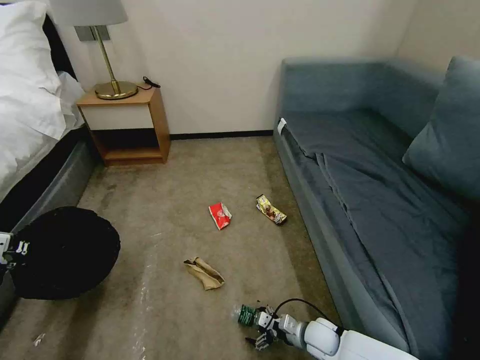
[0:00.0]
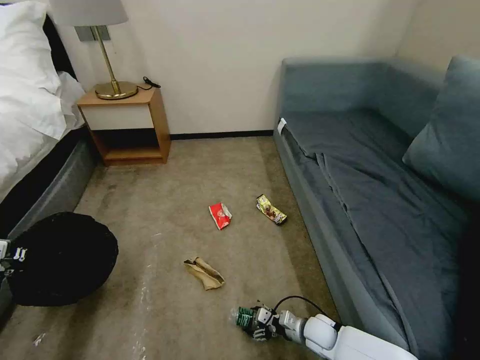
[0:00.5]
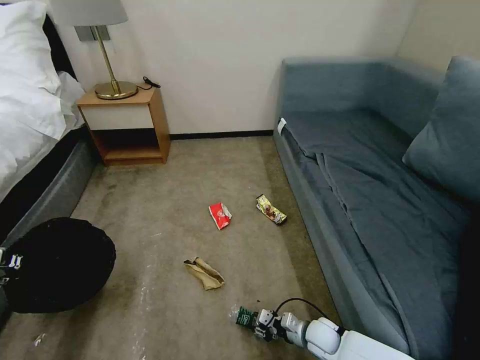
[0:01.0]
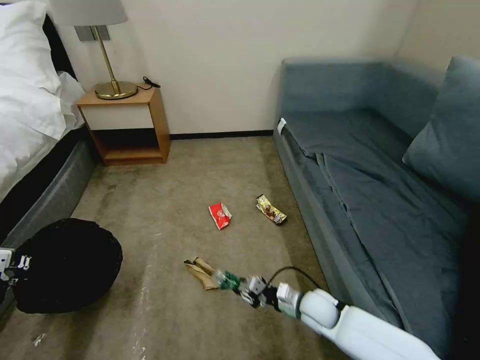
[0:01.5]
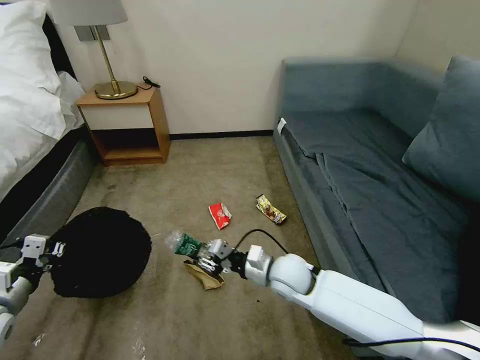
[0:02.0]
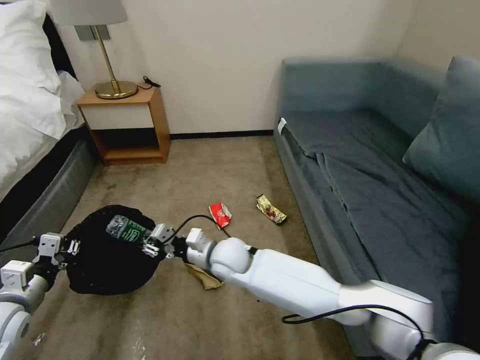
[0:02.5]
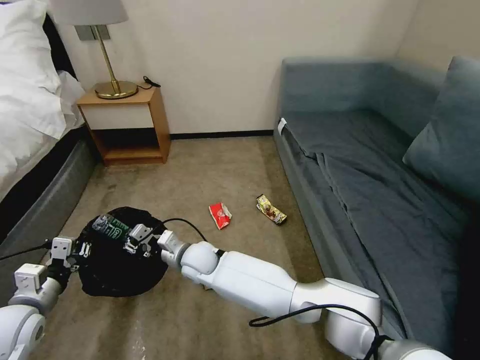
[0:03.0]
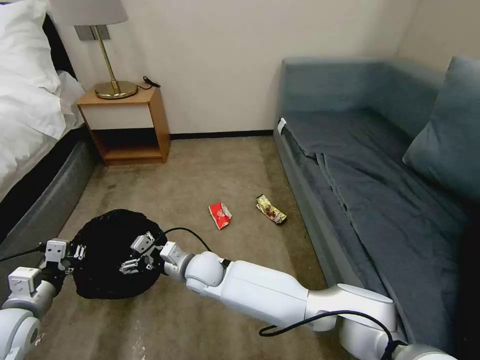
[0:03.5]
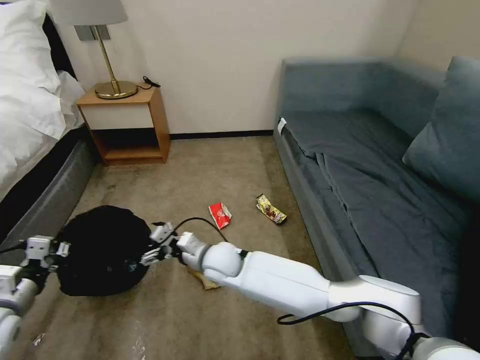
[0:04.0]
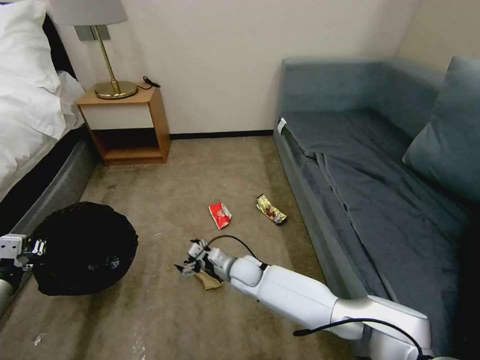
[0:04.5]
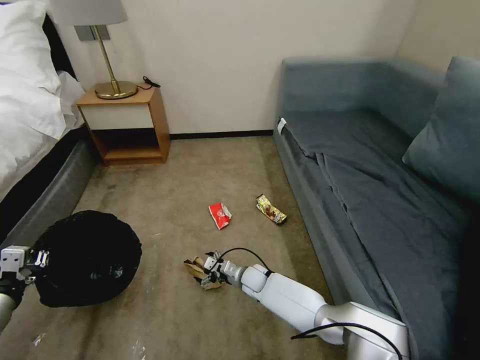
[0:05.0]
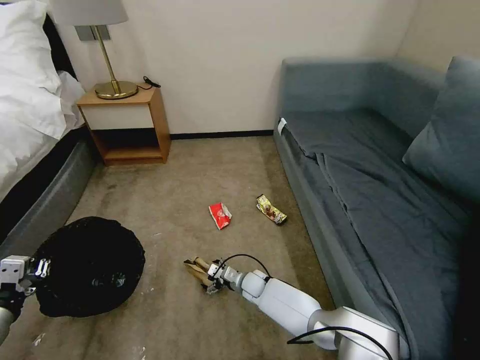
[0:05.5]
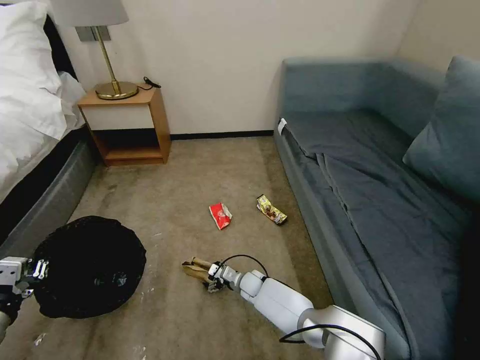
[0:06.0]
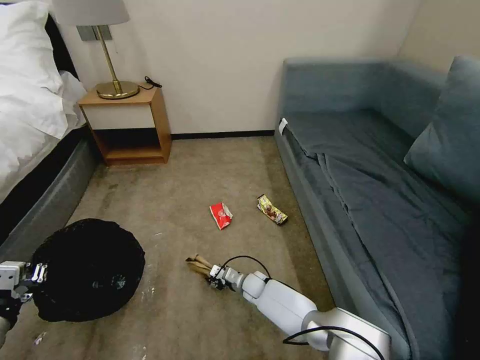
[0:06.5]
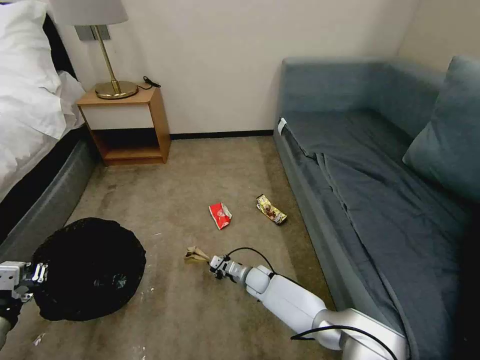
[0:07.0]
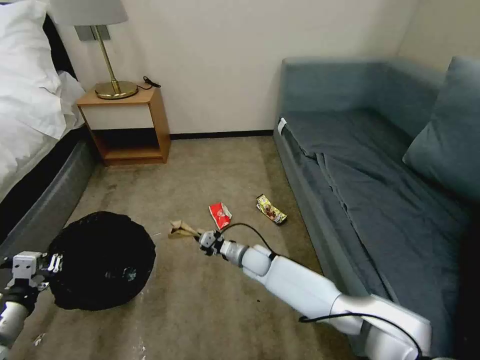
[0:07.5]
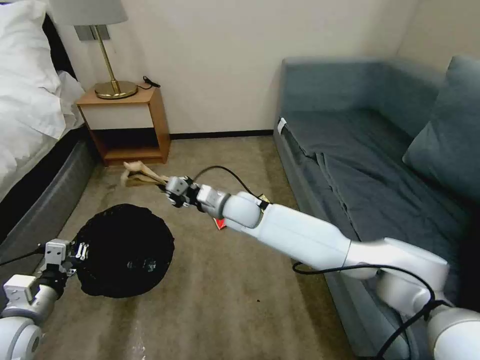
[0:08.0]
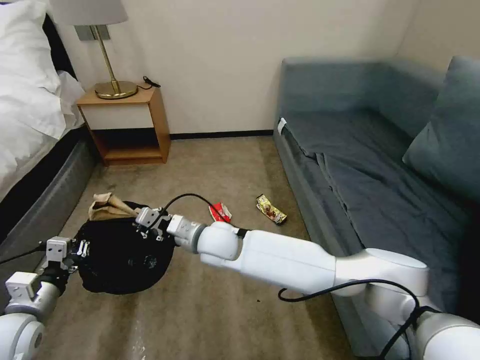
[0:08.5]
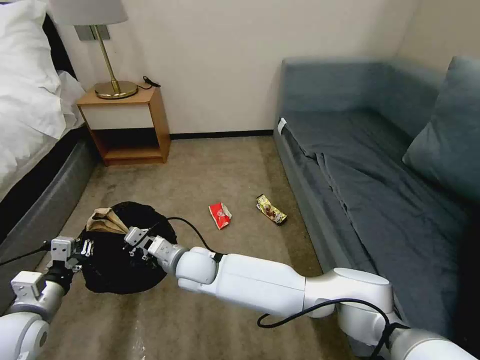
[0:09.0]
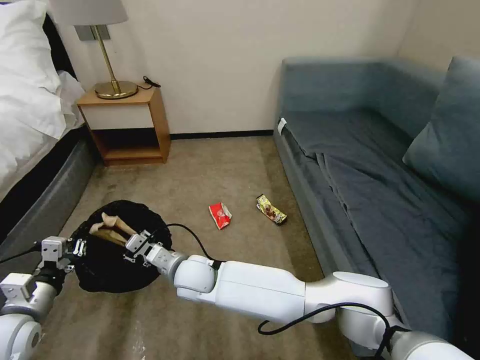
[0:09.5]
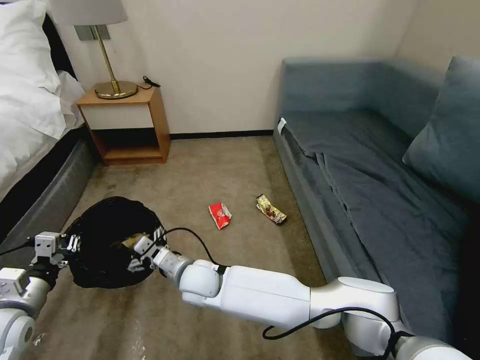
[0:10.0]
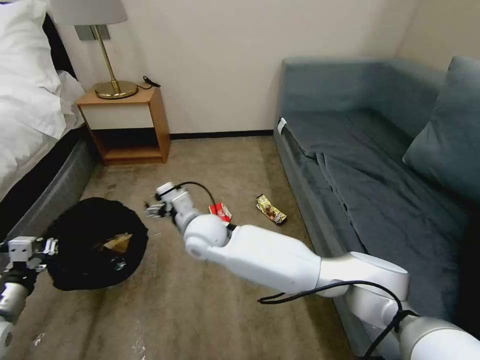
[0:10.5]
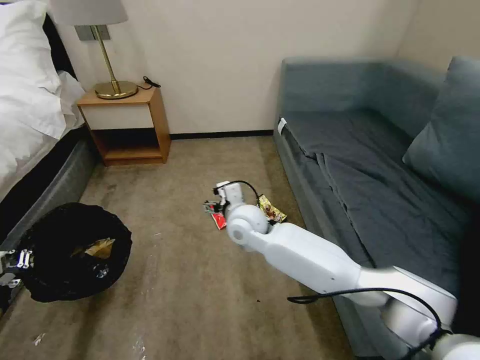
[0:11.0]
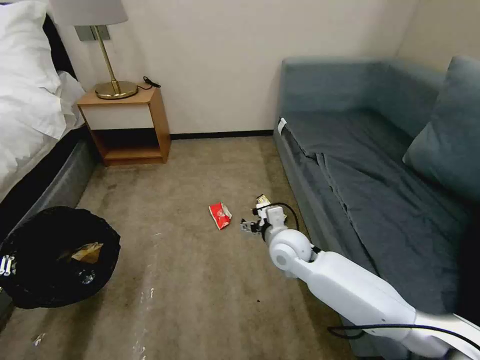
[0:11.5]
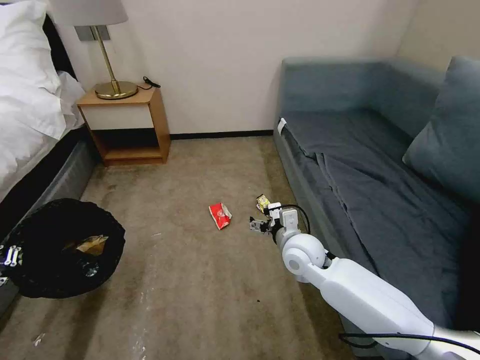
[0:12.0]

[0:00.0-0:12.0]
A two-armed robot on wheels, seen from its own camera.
Task of the whole recording: Pick up the trash bin, then pick up the garbage on the floor and place it into the trash bin.
0:00.0 to 0:02.0: The right gripper moves upward, to the left and forward, about 25 cm, and closes up; the left gripper goes about 5 cm to the right.
0:02.0 to 0:04.0: The right gripper heads to the left, covering approximately 15 cm, and opens up.
0:04.0 to 0:06.0: The left gripper is displaced backward by about 5 cm. Meanwhile the right gripper moves downward and to the right, roughly 25 cm.
0:06.0 to 0:08.0: The left gripper heads forward, covering some 5 cm; the right gripper moves upward, roughly 30 cm, and closes up.
0:08.0 to 0:10.0: The right gripper heads backward, to the left and downward, covering approximately 20 cm, and opens up.
0:10.0 to 0:12.0: The left gripper travels to the left and backward by roughly 10 cm, while the right gripper travels to the right by some 25 cm.

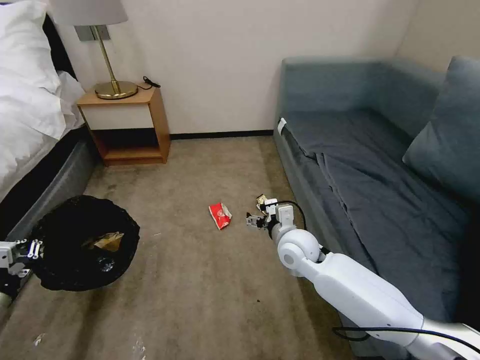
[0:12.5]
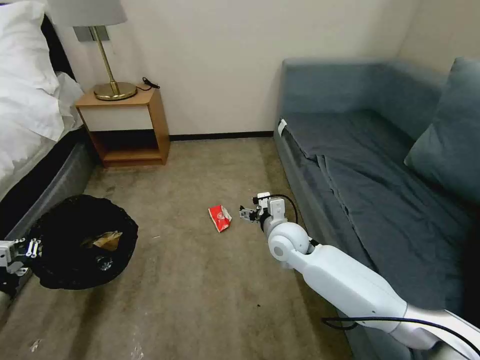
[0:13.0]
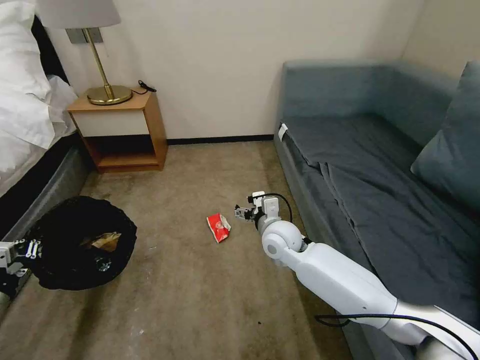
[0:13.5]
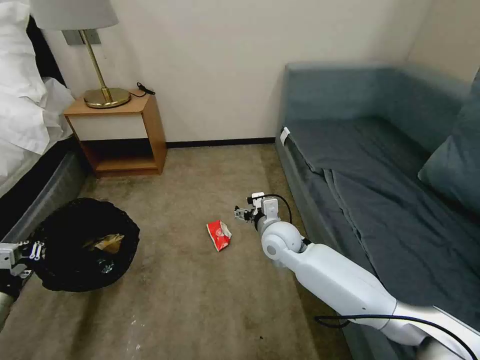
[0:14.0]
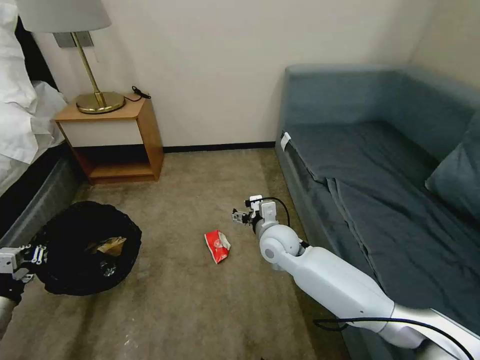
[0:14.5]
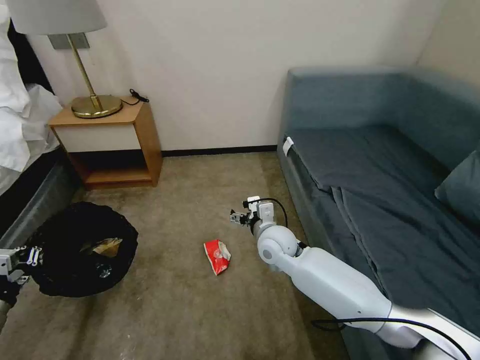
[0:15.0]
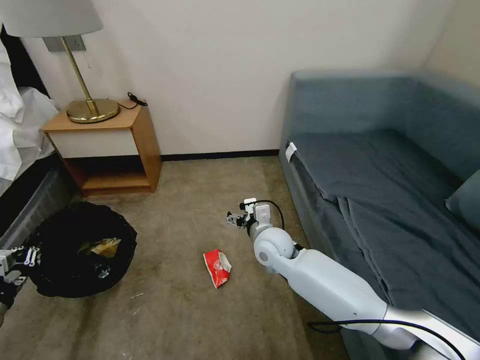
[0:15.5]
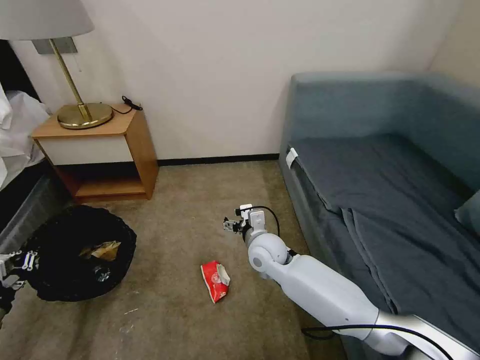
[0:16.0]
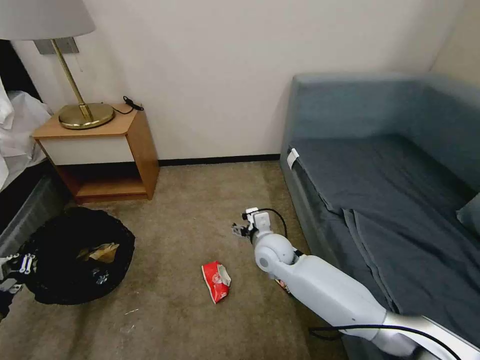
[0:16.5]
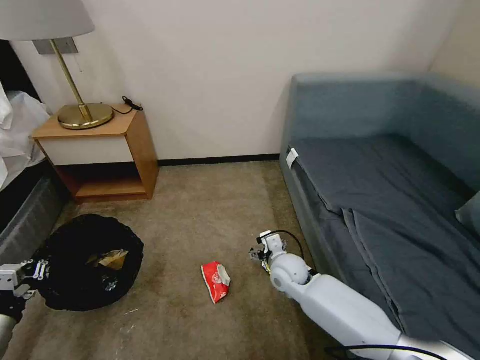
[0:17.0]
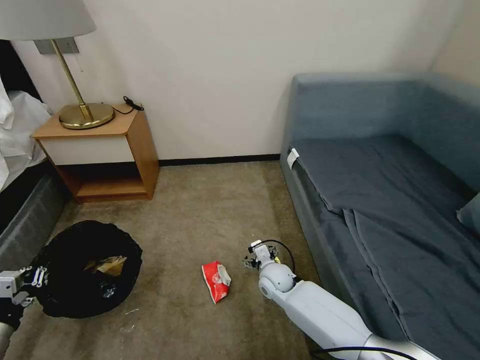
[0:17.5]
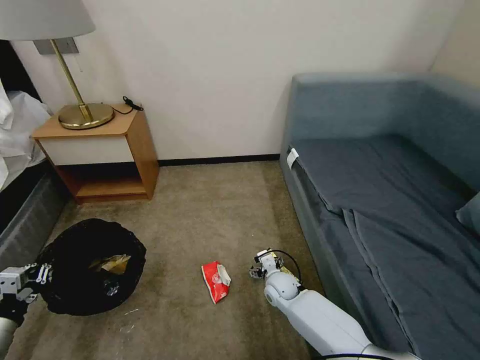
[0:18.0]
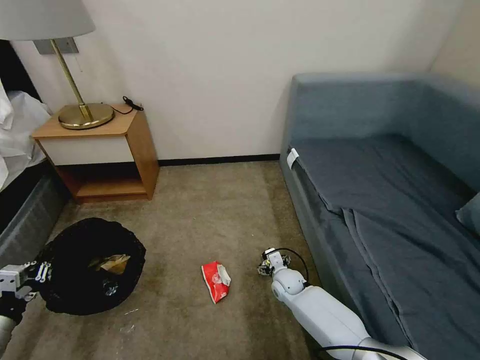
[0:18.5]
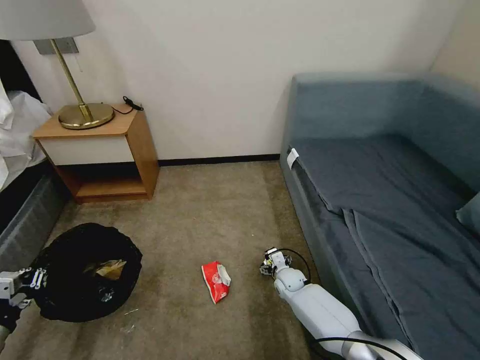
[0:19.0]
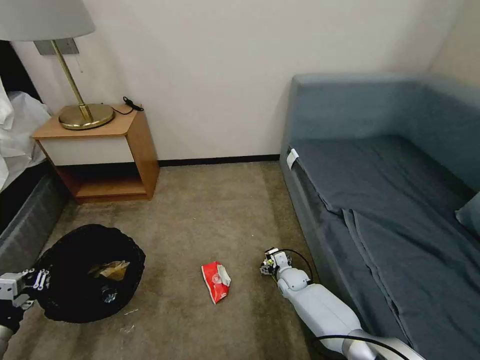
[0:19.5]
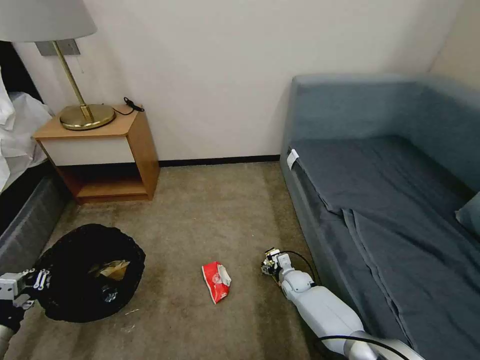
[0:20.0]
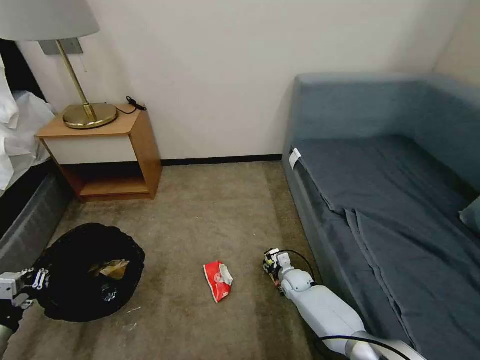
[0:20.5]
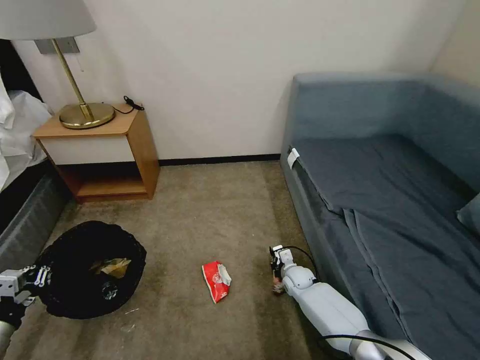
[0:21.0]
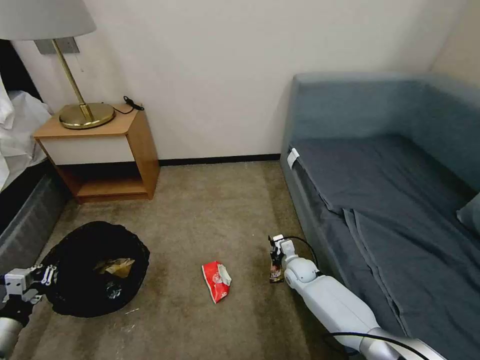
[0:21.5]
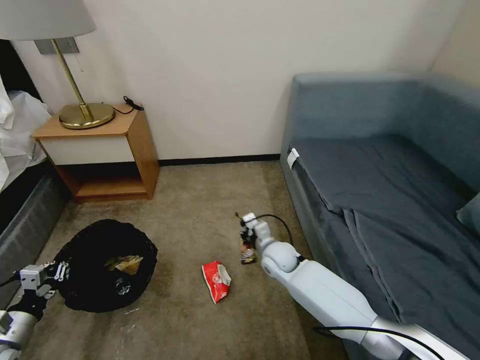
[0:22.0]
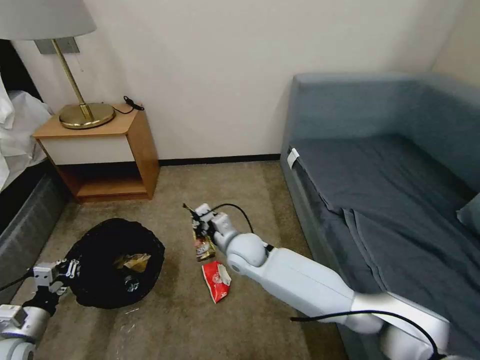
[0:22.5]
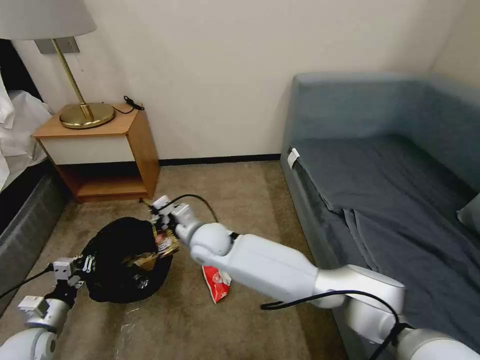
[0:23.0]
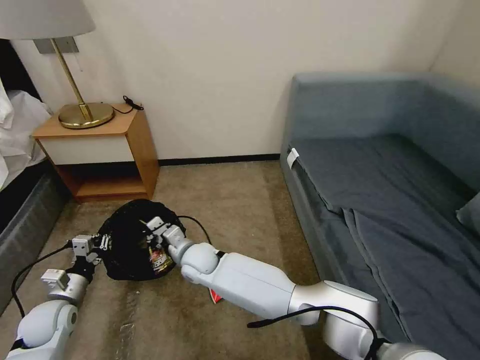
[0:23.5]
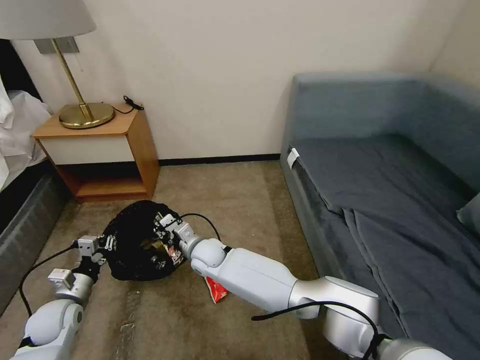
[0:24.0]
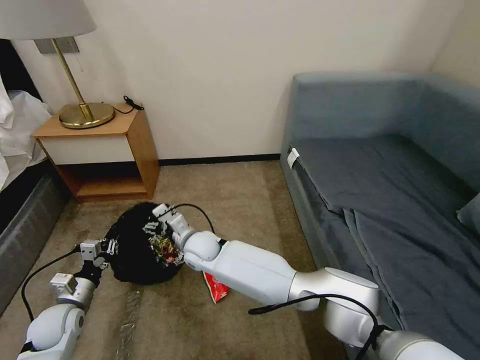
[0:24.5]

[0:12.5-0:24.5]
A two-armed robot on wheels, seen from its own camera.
Task of the whole recording: Pick up the trash bin, then pick up the garbage on the floor and place it into the trash bin.
0:16.5 to 0:18.5: The right gripper moves downward, roughly 20 cm.
0:18.5 to 0:20.5: The right gripper moves some 5 cm, and closes up.
0:20.5 to 0:22.5: The left gripper changes place by roughly 5 cm; the right gripper moves upward and to the left, roughly 25 cm, and closes up.
0:22.5 to 0:24.5: The left gripper is displaced forward and to the right by approximately 10 cm. Meanwhile the right gripper moves to the left, approximately 15 cm, and opens.

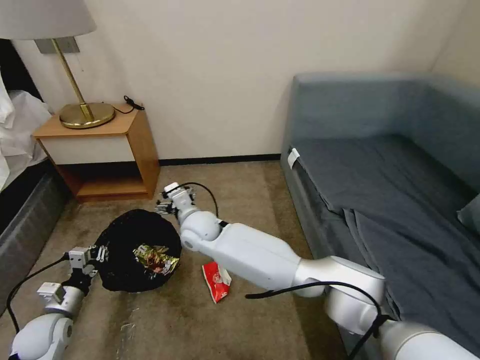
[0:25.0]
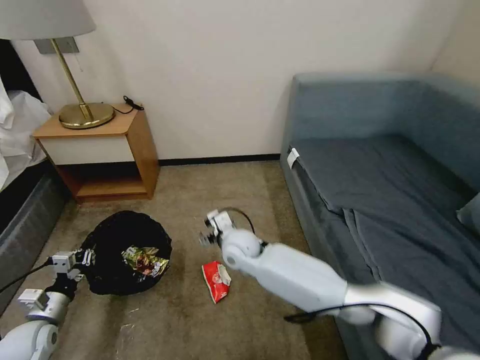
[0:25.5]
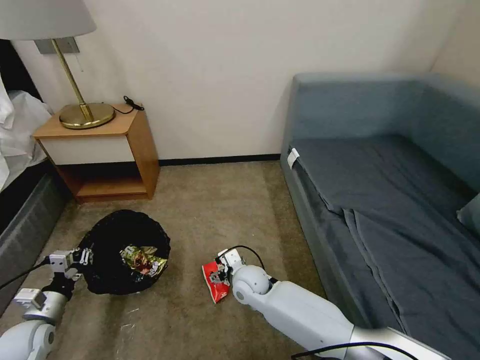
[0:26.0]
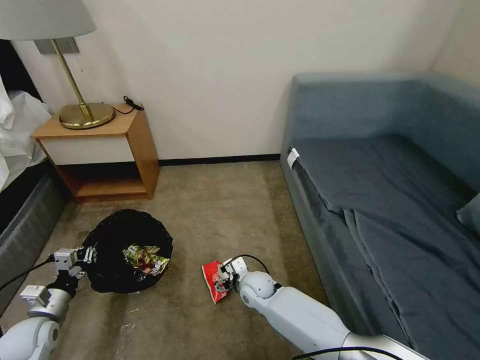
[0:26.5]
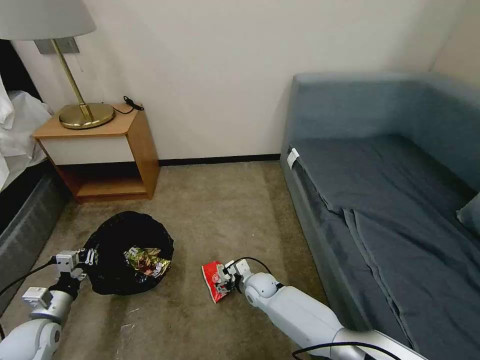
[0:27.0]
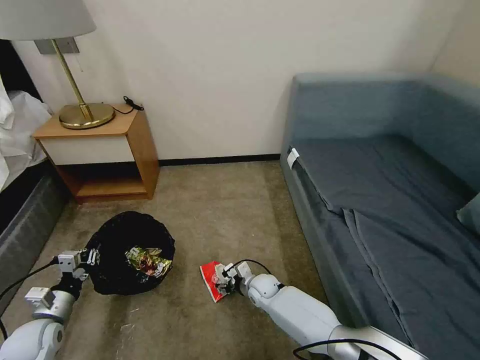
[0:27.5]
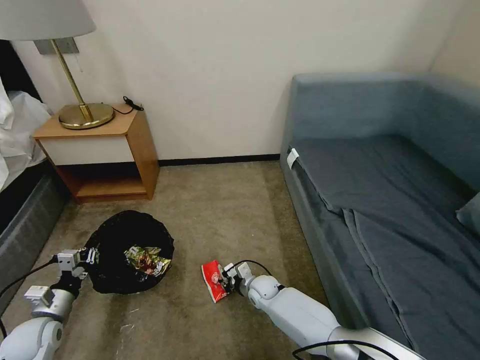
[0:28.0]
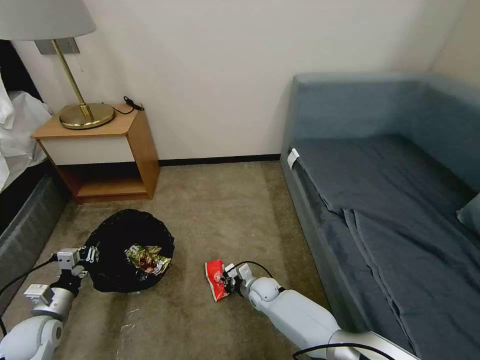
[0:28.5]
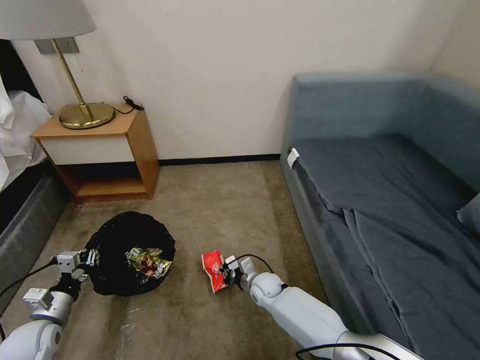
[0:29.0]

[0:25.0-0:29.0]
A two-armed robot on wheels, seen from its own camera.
Task of the whole recording: Pick up the trash bin, then pick up the garbage on the floor and place it into the trash bin.
0:25.0 to 0:27.0: The right gripper moves downward and to the right, some 30 cm.
0:27.0 to 0:29.0: The right gripper closes up.
